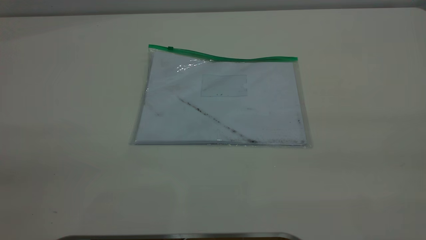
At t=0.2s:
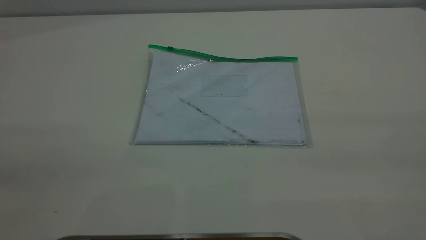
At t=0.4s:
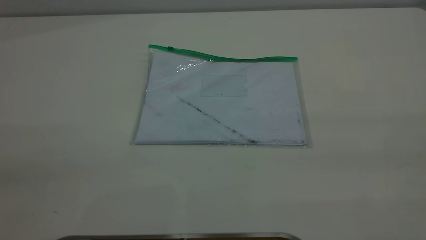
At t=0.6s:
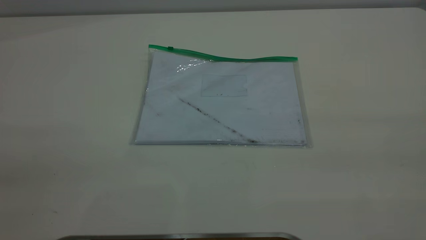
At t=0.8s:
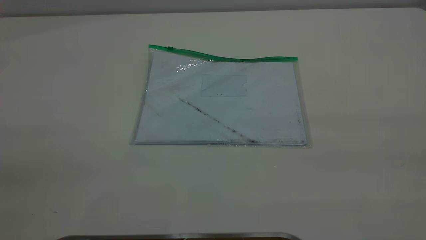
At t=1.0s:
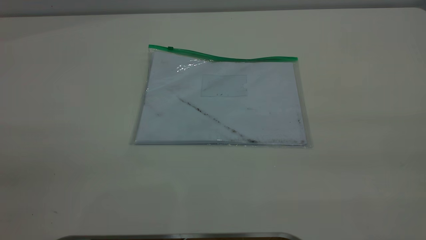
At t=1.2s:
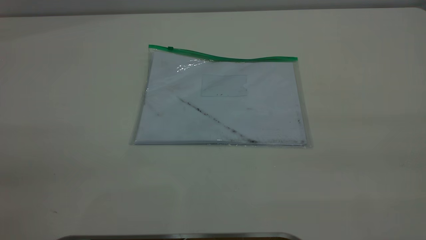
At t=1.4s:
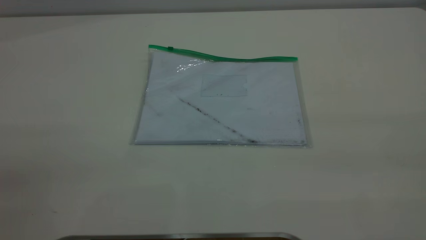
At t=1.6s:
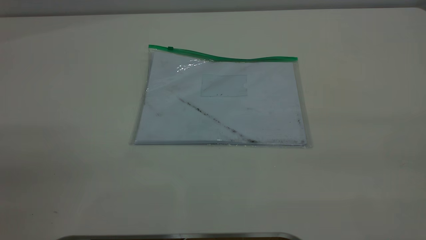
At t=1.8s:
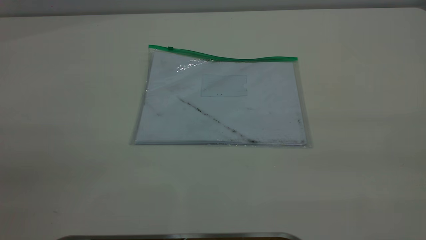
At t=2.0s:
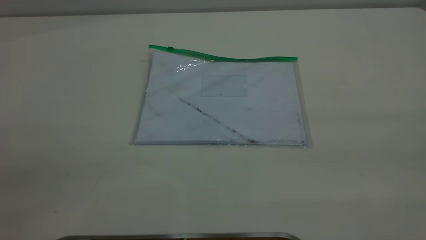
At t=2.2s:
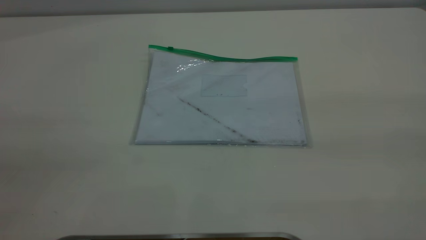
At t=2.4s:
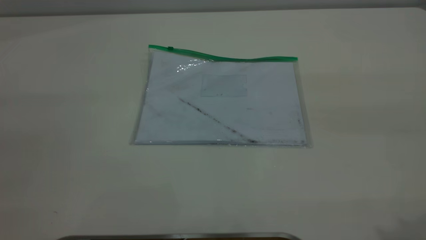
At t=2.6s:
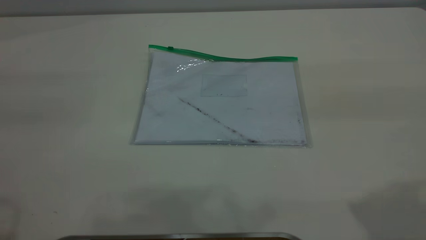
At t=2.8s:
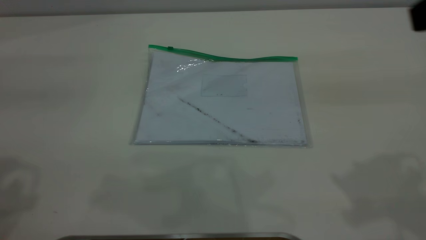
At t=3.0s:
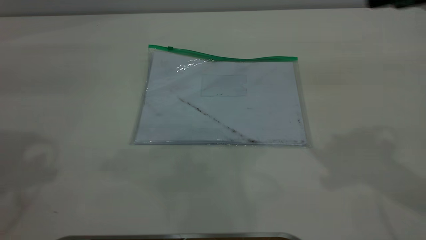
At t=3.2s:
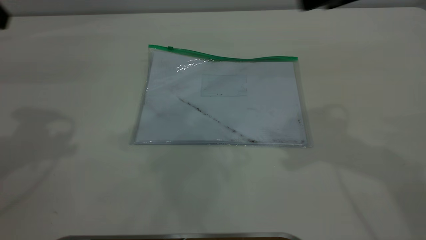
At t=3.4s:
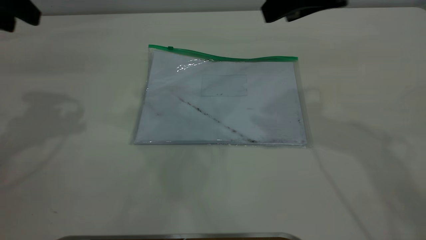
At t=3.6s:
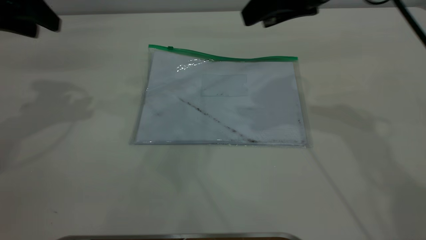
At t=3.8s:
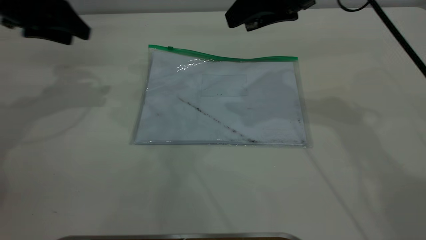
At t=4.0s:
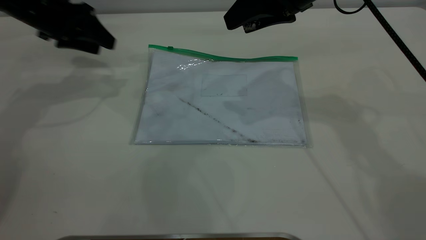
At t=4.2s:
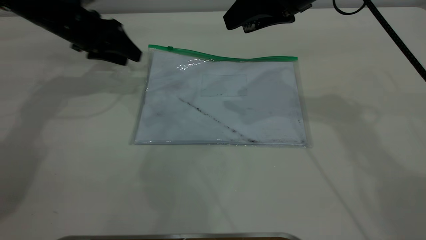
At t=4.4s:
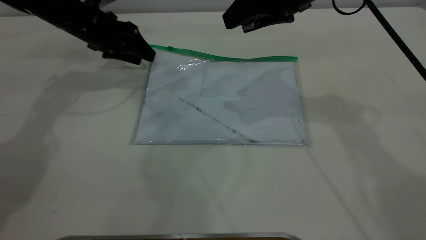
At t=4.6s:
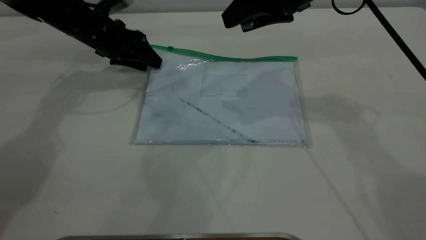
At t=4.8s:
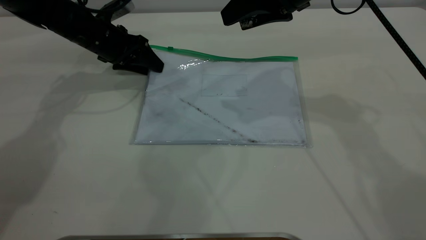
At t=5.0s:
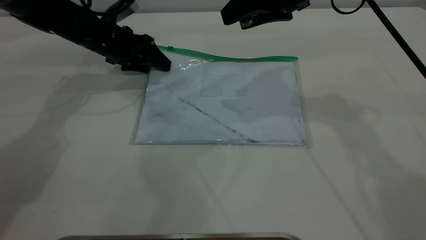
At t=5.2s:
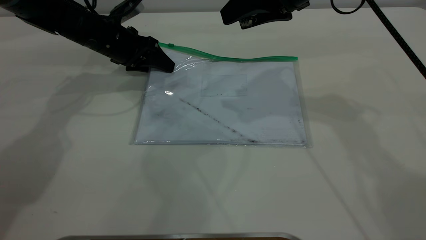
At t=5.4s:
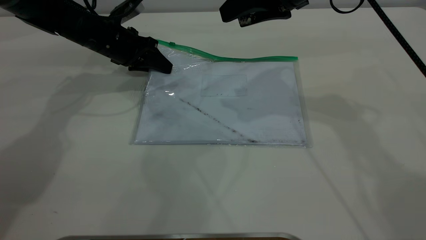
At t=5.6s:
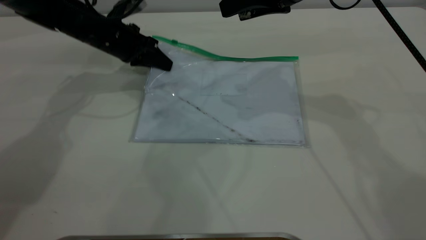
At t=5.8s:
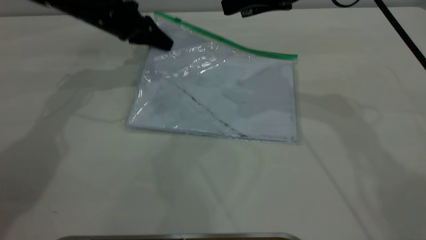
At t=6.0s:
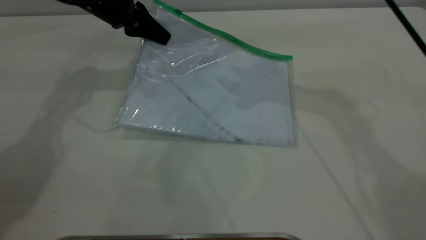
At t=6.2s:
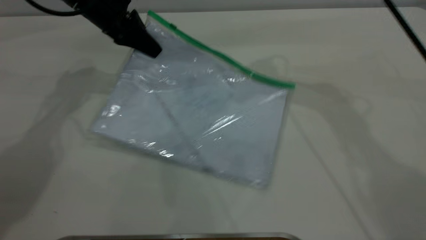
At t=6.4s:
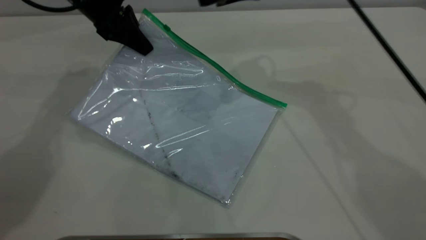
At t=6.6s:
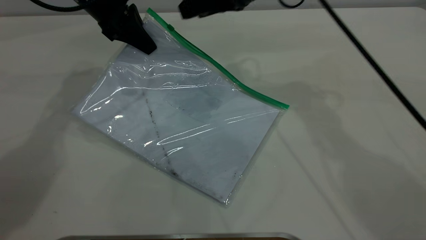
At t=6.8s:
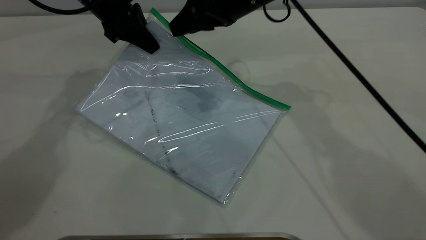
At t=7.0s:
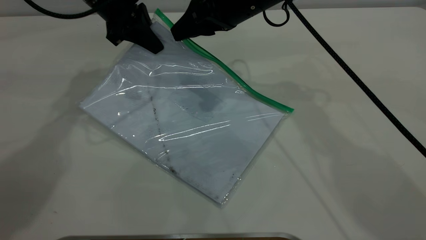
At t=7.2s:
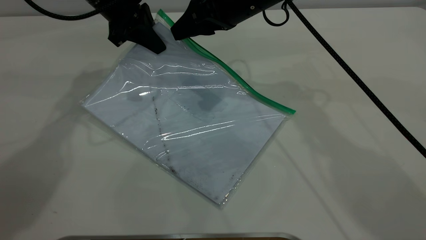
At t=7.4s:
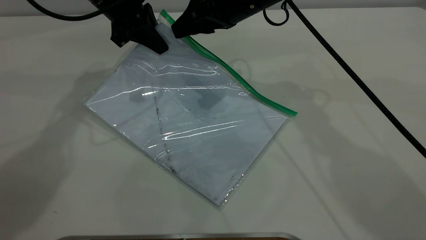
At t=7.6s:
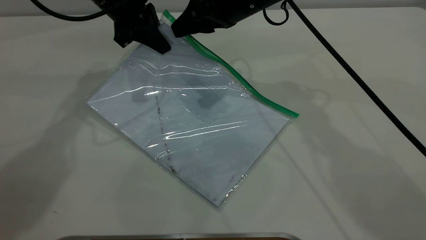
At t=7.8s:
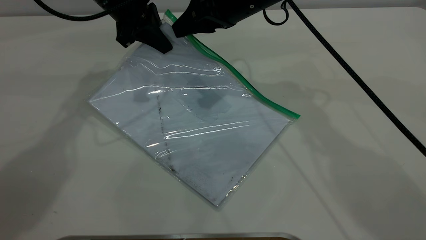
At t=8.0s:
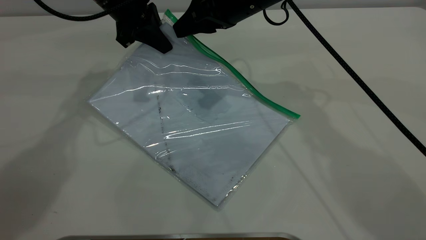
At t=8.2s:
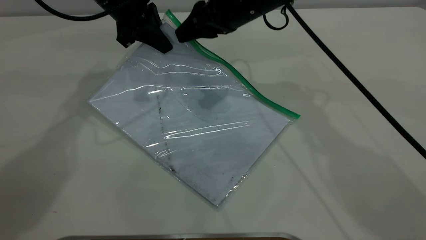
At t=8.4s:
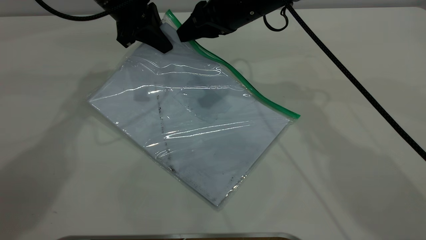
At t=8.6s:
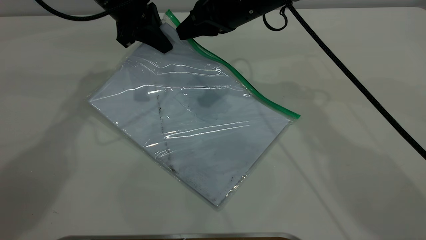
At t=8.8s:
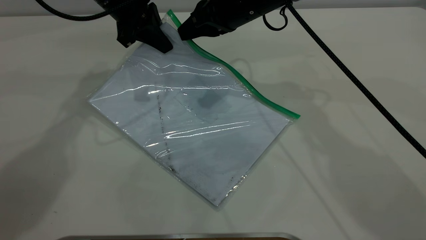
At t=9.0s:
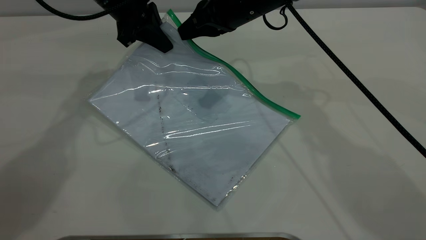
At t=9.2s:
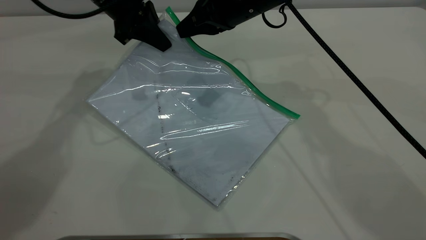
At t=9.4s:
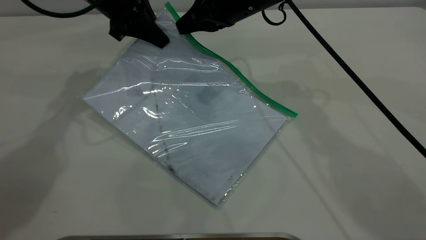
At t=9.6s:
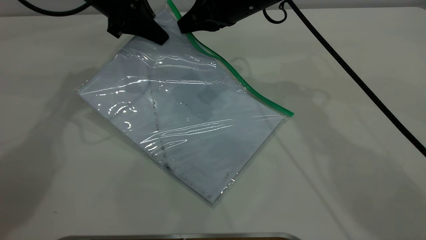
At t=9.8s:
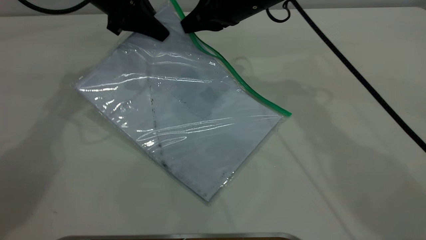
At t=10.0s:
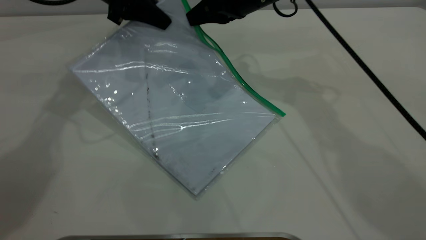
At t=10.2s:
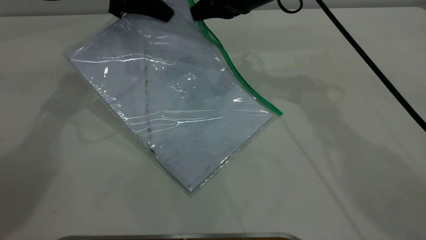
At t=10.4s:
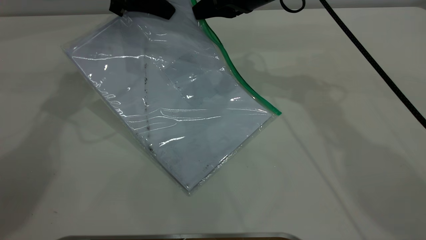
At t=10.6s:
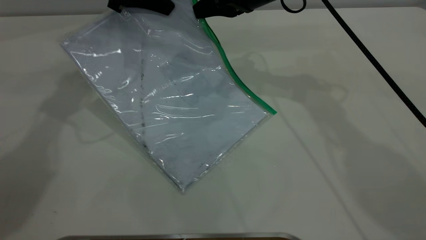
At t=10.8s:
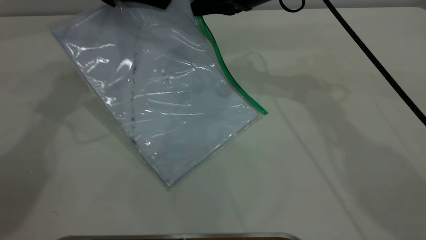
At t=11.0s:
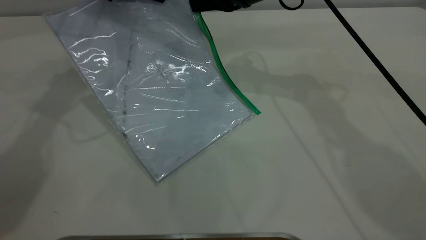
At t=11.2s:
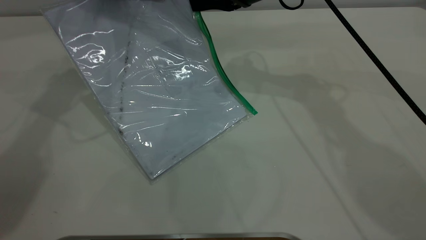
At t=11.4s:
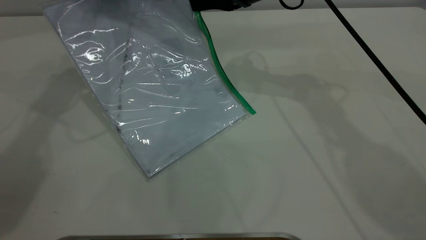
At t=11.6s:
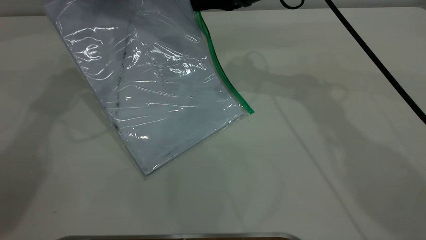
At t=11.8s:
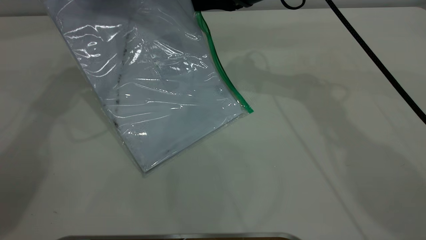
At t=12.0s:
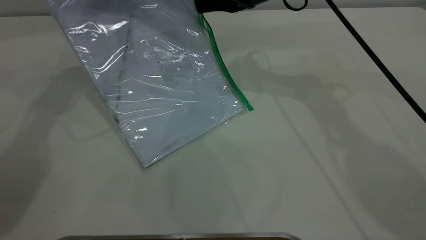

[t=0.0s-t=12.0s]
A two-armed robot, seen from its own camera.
Step, t=0.0s to t=5.6s: Pick up the transparent plastic bag with the left gripper.
t=0.0s to t=1.6s: Neither gripper changes place.
t=3.0s to t=4.4s: The left gripper moves forward and downward, about 30 cm. The right gripper is displaced forward, to the left and downward by roughly 20 cm.
t=4.4s to t=6.0s: The left gripper shifts some 5 cm upward, and closes.
t=6.0s to t=7.6s: The right gripper travels downward and to the left by approximately 10 cm.
t=7.6s to t=9.0s: The right gripper closes its fingers.
t=9.0s to t=10.4s: The grippers stay close to where they were, moving slightly.
t=10.4s to t=12.0s: The grippers make only small movements.

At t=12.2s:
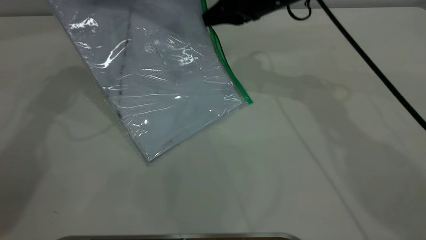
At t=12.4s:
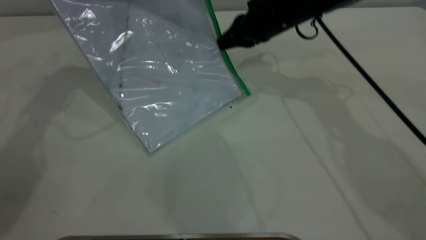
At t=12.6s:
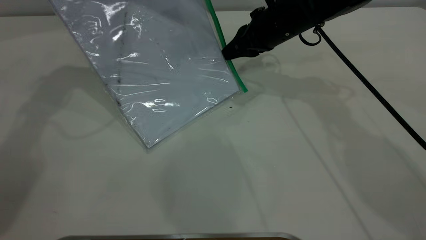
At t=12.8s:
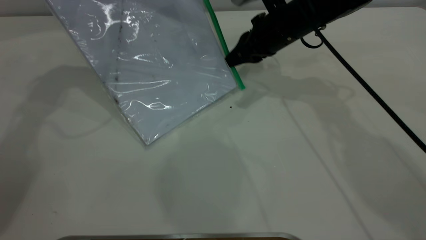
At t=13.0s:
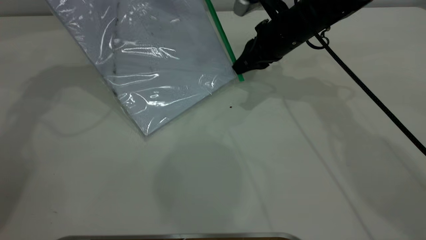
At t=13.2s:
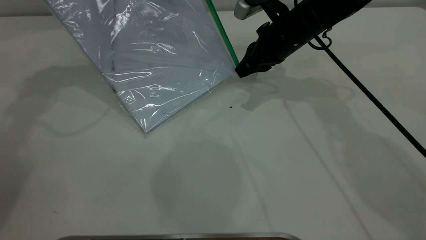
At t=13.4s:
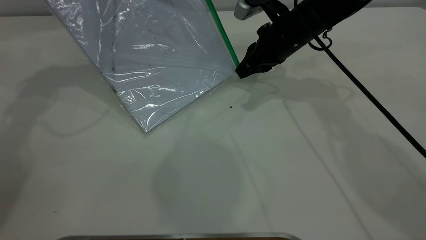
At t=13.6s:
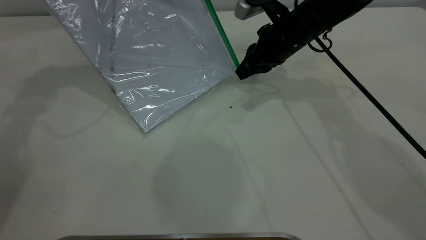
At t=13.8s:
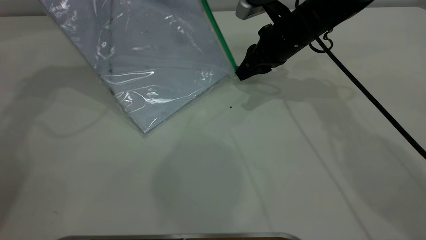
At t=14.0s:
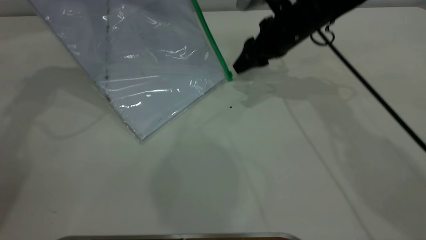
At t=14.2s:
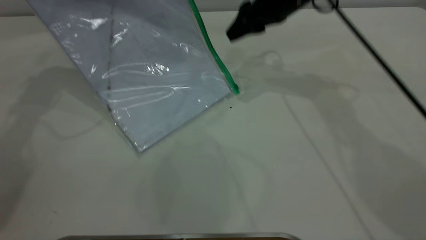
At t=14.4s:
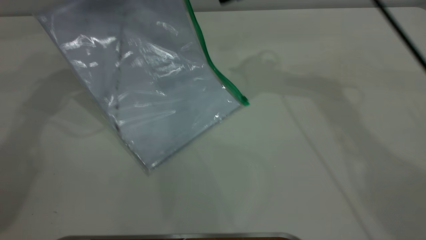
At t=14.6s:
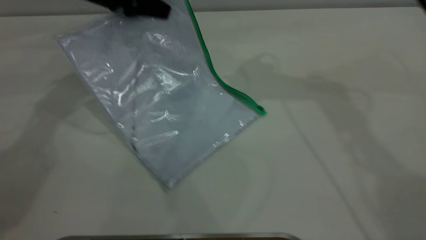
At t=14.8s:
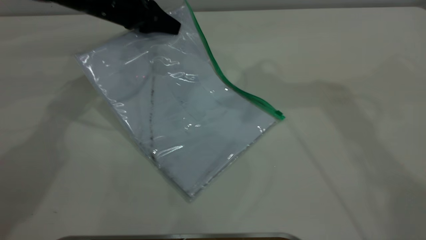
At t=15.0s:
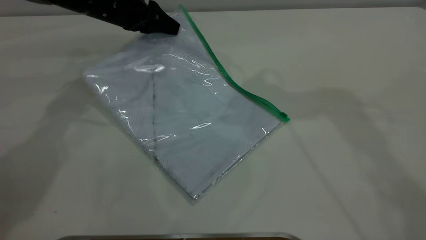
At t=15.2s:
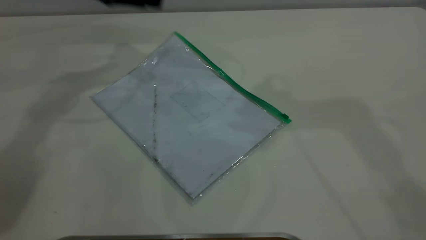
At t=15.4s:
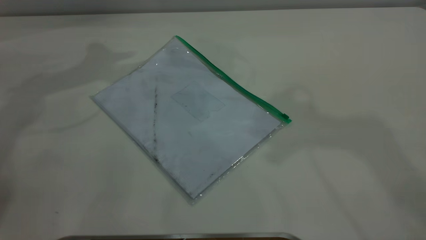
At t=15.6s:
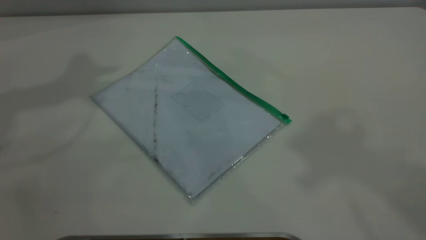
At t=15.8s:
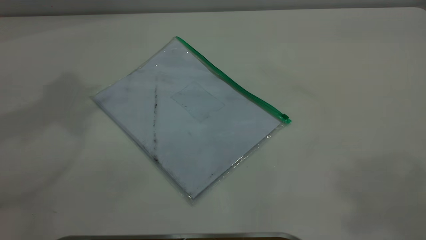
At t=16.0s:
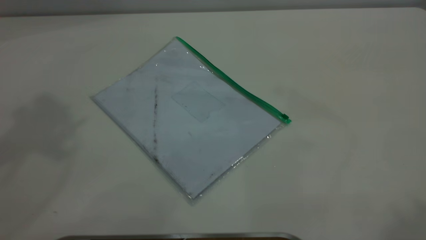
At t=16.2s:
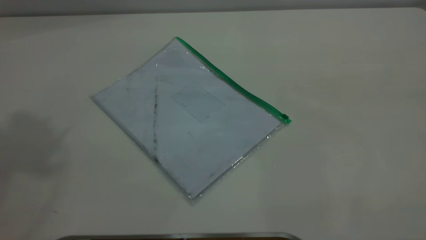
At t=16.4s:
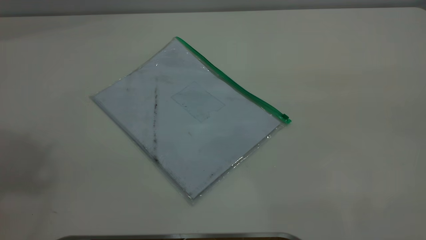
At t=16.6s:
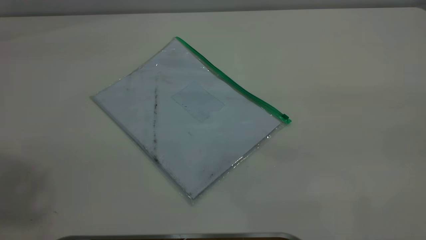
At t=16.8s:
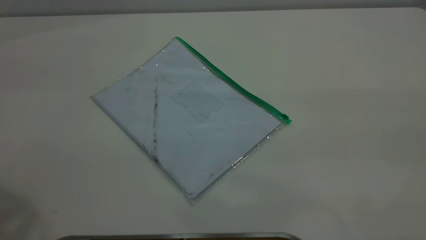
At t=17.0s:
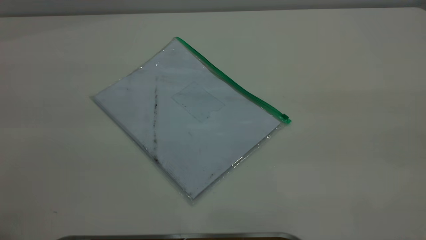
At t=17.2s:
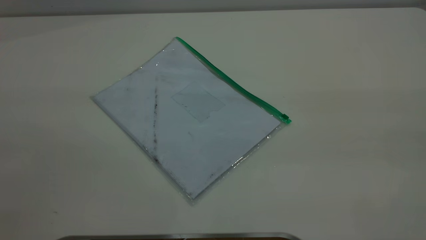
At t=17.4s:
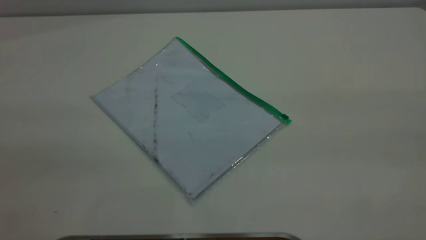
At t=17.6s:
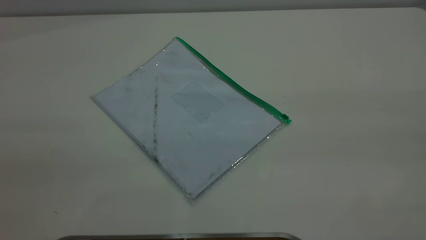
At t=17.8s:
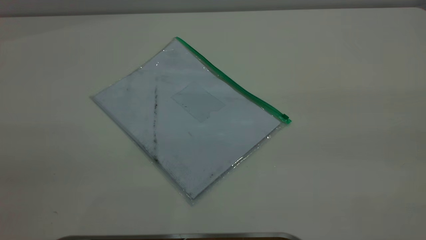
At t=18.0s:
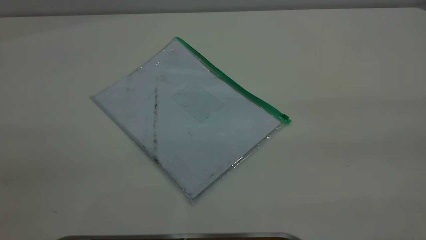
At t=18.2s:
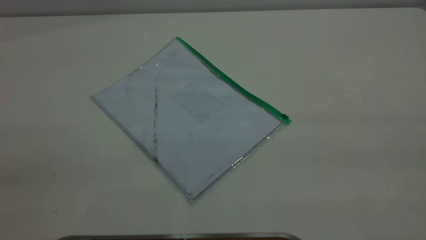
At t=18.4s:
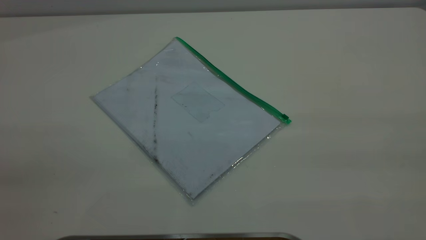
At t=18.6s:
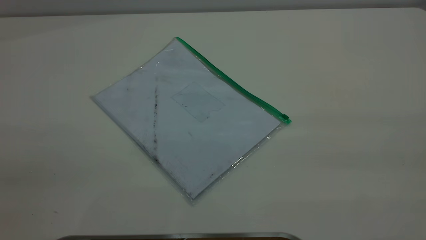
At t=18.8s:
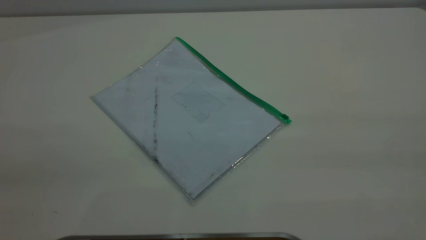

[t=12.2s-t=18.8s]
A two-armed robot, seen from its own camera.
Step, t=14.2s to t=15.0s: Place the transparent plastic bag.
t=12.2s to t=13.8s: The right gripper moves downward, approximately 5 cm.
t=13.8s to t=15.4s: The right gripper goes approximately 40 cm upward, and opens, then closes once more. The left gripper moves roughly 10 cm downward and comes back, and opens its fingers.
